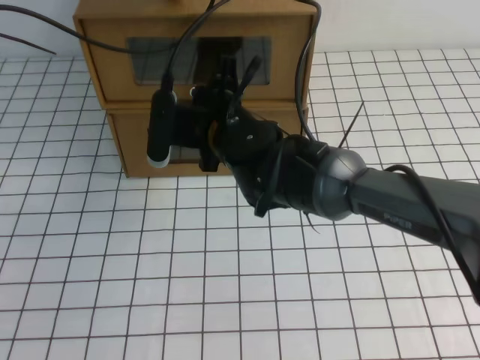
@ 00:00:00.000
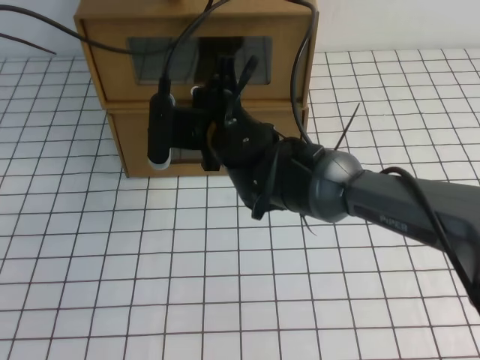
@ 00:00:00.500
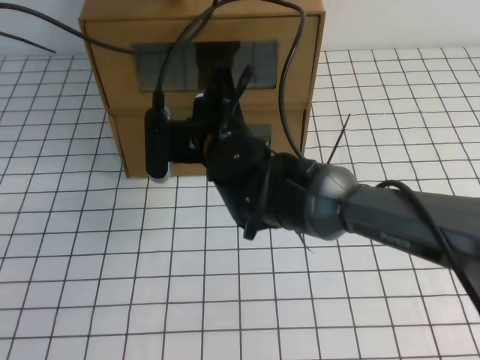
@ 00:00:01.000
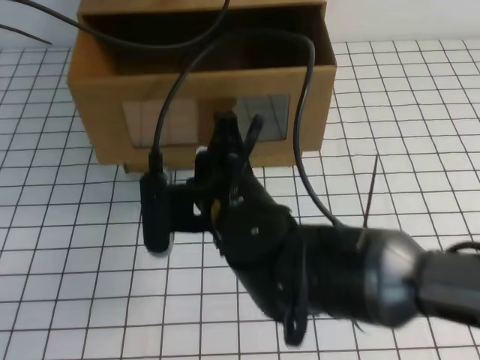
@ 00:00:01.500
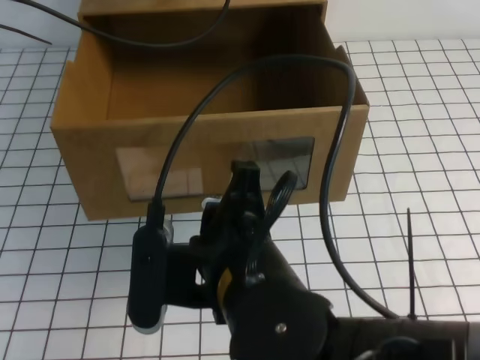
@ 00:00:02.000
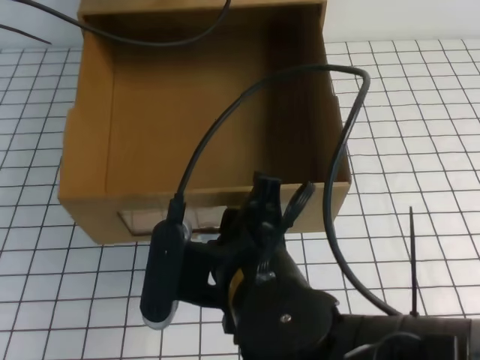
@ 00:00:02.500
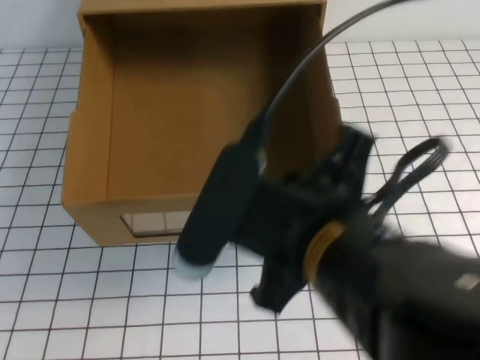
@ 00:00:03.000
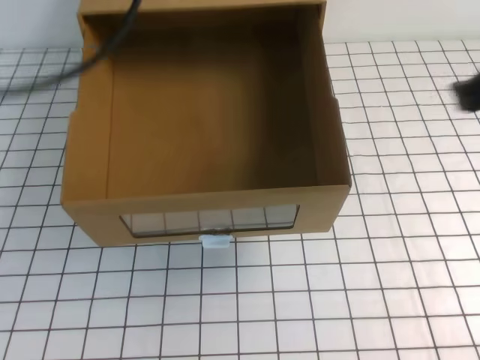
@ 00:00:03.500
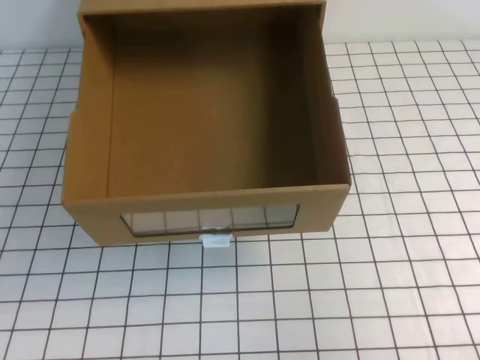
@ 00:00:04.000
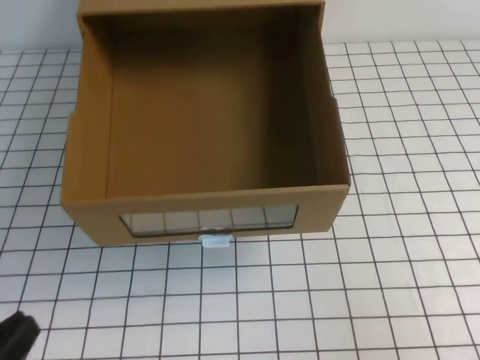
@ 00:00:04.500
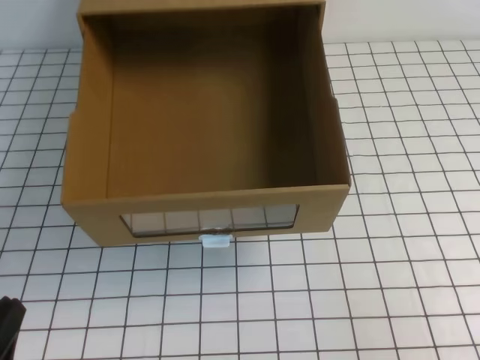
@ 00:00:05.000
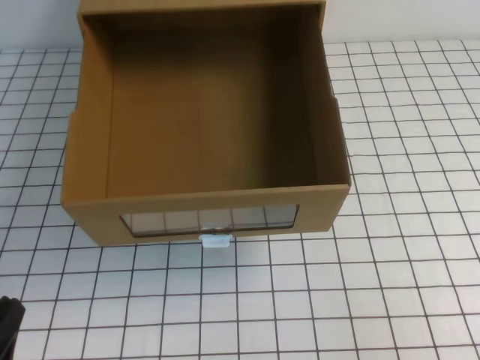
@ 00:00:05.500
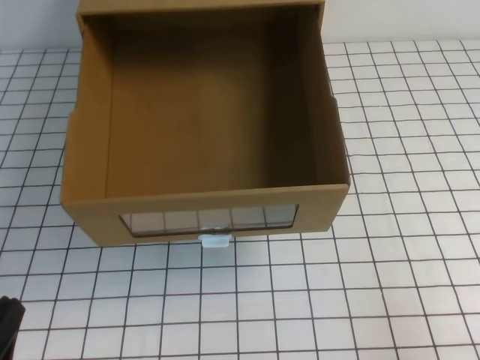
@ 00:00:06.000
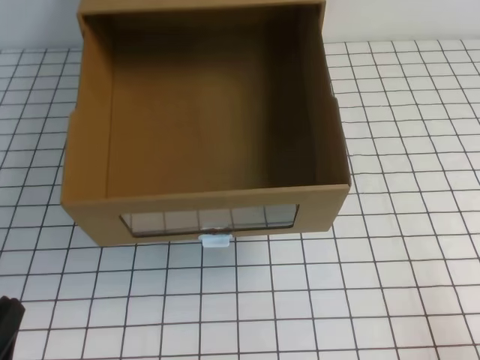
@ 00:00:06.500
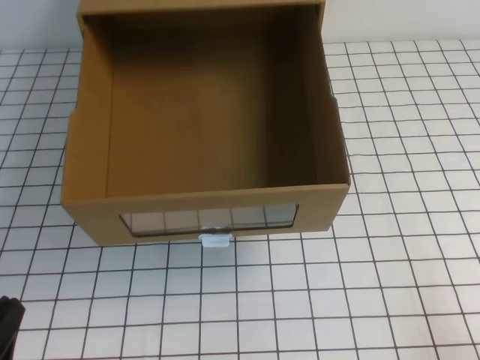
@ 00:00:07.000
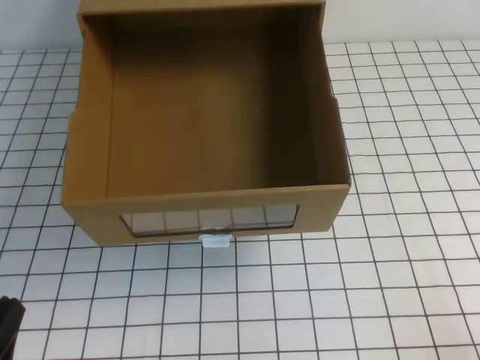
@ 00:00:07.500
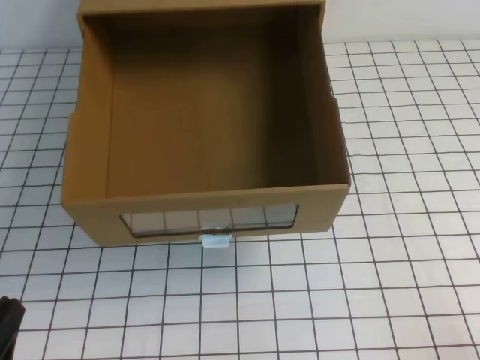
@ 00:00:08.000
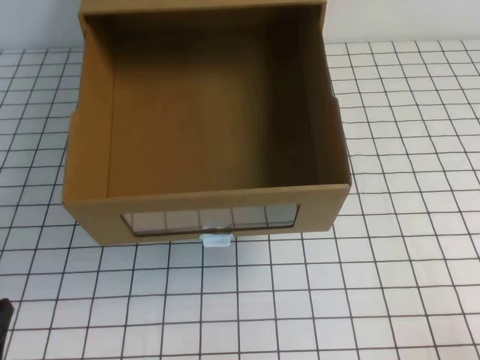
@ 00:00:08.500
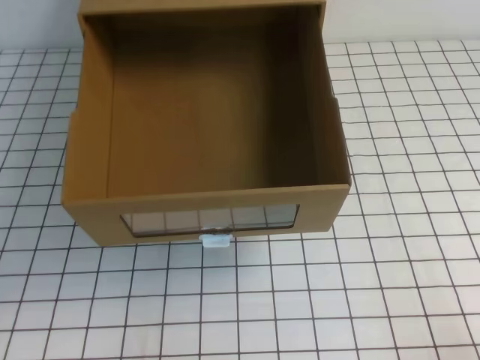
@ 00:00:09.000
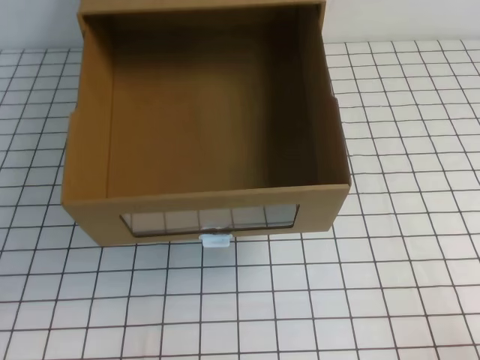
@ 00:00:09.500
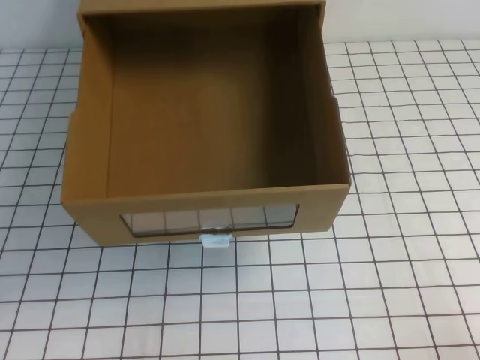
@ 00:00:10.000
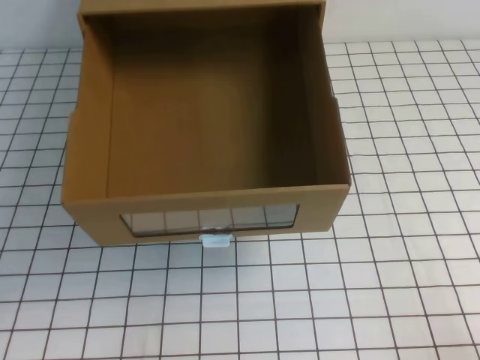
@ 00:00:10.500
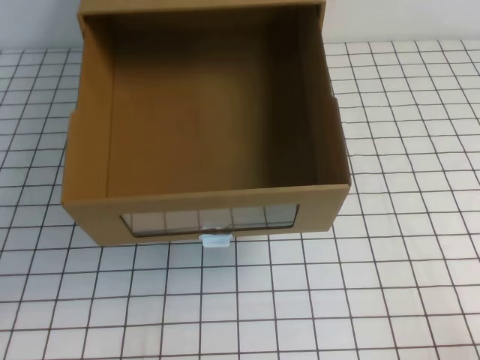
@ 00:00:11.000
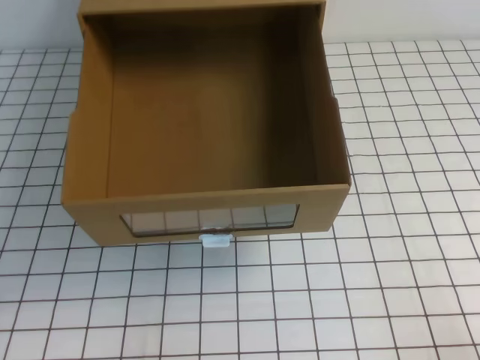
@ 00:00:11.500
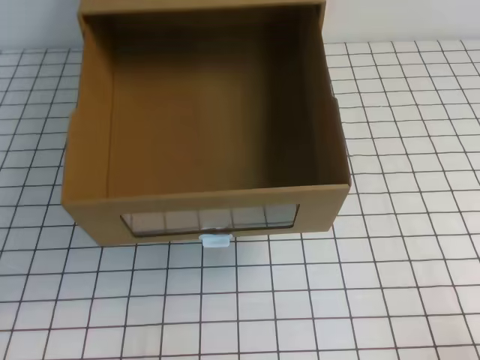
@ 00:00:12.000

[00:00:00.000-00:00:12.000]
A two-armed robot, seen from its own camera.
Task of the whole recording: open the shoebox on the white tablecloth.
Step, 00:00:00.000 to 00:00:12.000: Open the shoe box.
00:00:00.000 to 00:00:02.000: The right gripper moves backward, about 20 cm.
00:00:02.000 to 00:00:04.000: The left gripper moves backward, roughly 40 cm. The right gripper heads to the right, covering approximately 30 cm, and opens, then closes again.
00:00:04.000 to 00:00:06.000: The right gripper shifts approximately 15 cm downward and backward. Meanwhile the left gripper goes about 25 cm downward.
00:00:10.000 to 00:00:12.000: The two grippers keep their place.

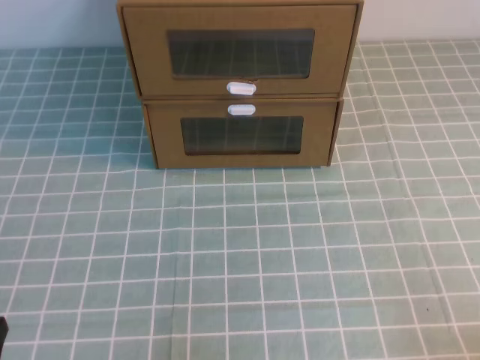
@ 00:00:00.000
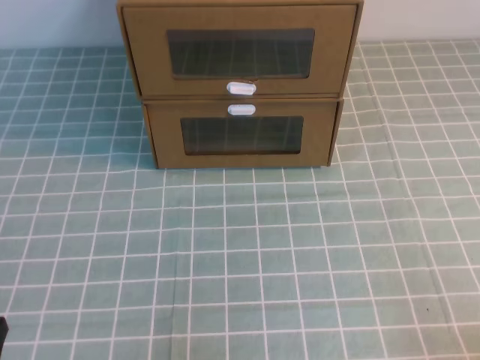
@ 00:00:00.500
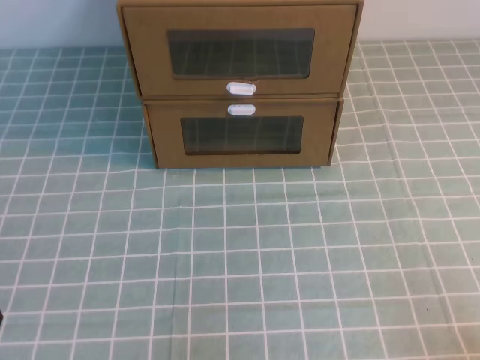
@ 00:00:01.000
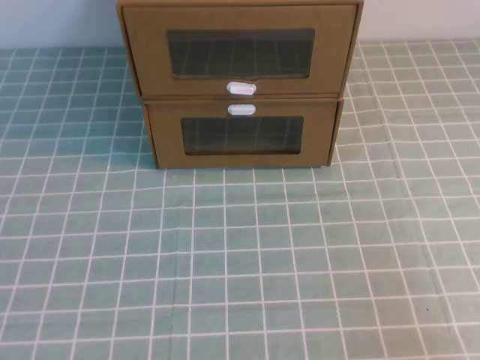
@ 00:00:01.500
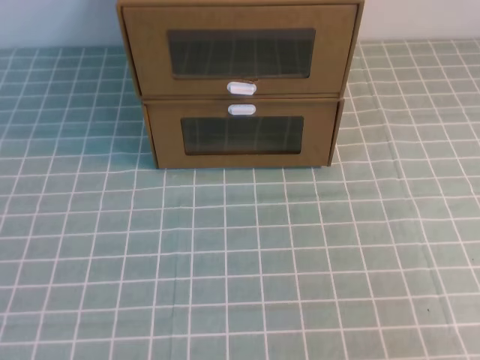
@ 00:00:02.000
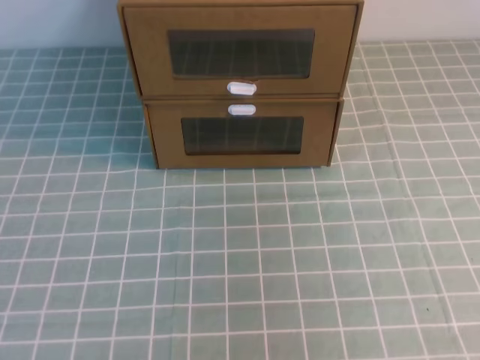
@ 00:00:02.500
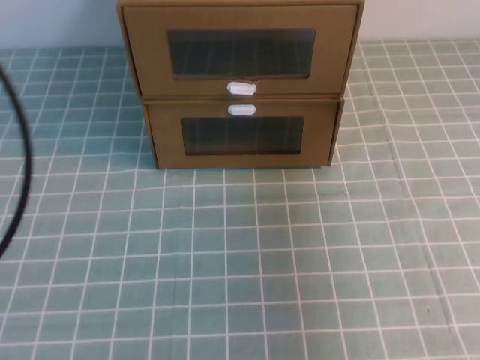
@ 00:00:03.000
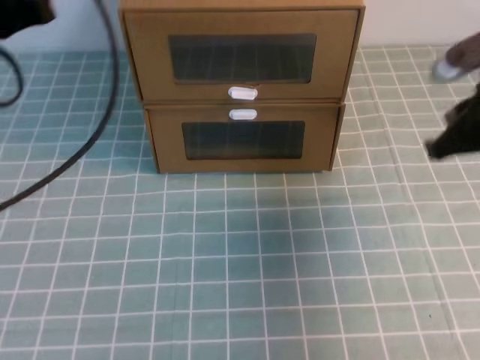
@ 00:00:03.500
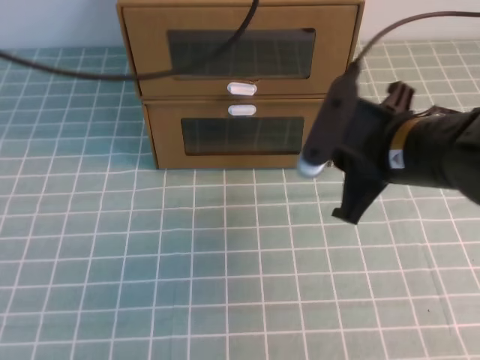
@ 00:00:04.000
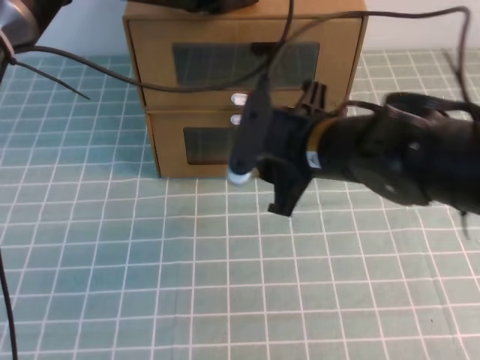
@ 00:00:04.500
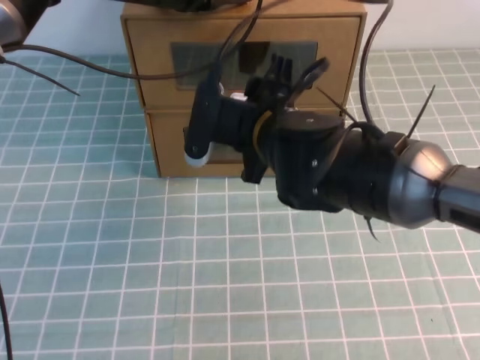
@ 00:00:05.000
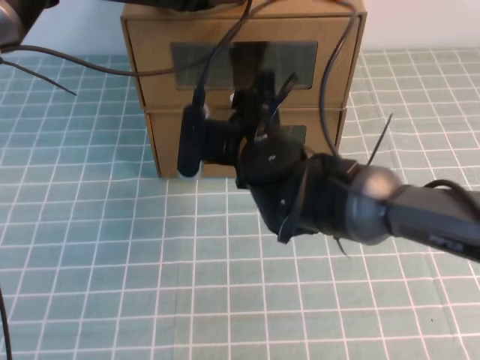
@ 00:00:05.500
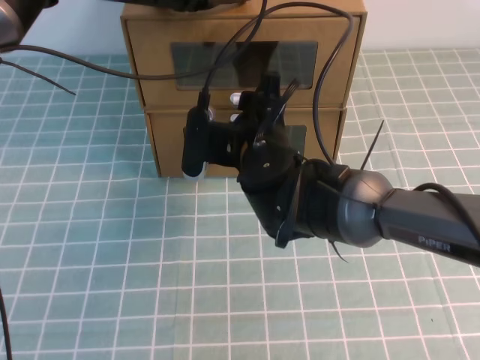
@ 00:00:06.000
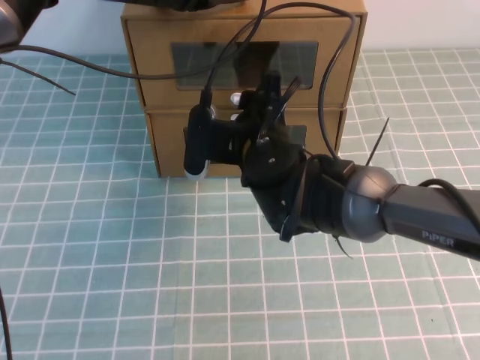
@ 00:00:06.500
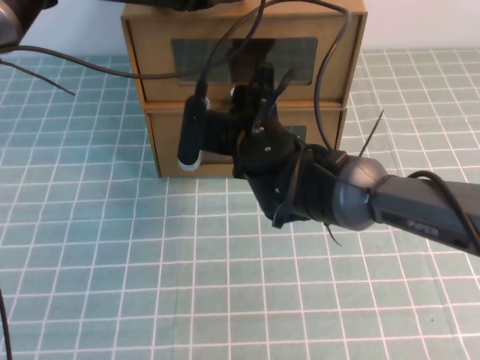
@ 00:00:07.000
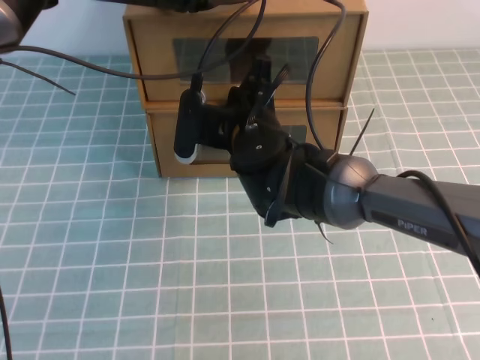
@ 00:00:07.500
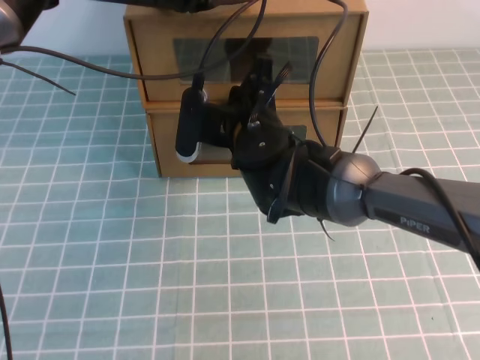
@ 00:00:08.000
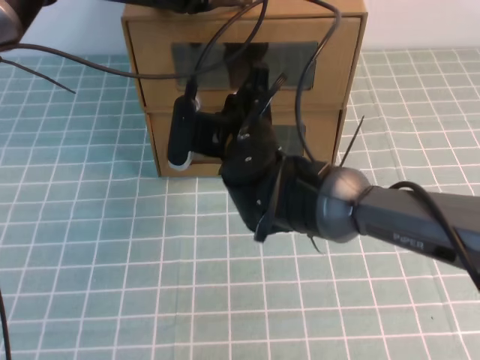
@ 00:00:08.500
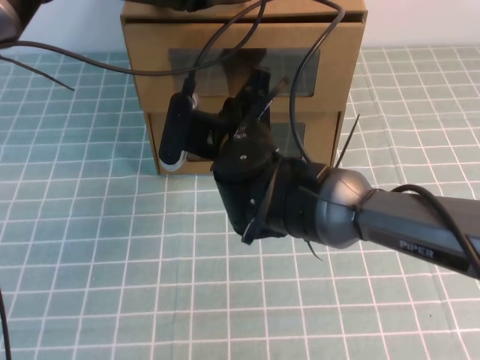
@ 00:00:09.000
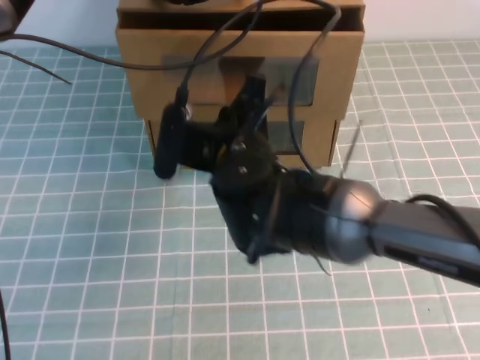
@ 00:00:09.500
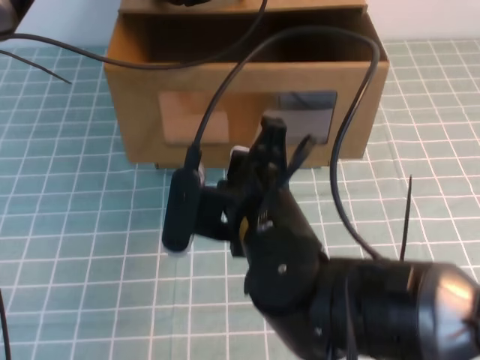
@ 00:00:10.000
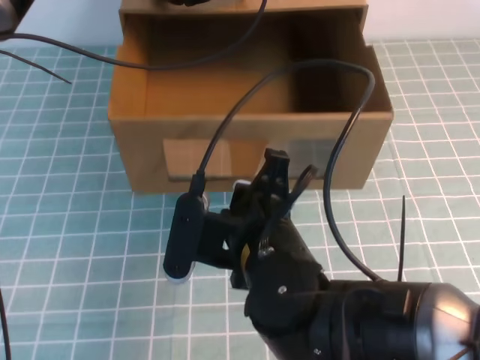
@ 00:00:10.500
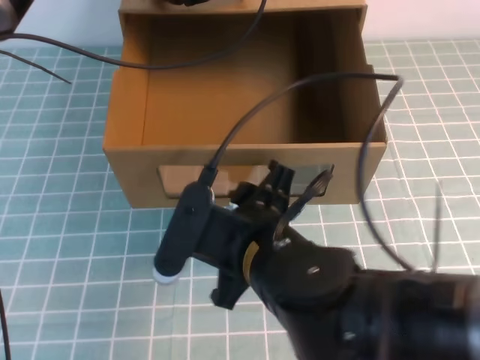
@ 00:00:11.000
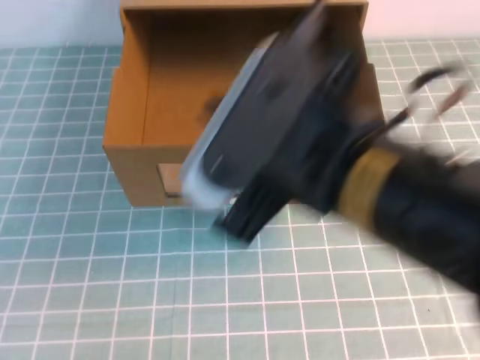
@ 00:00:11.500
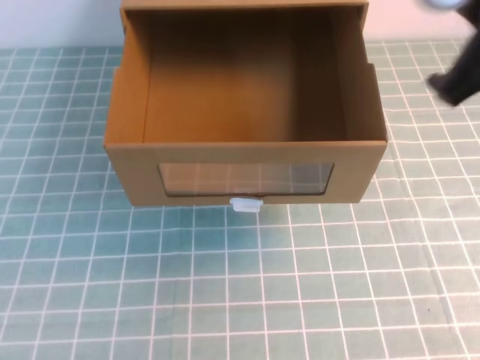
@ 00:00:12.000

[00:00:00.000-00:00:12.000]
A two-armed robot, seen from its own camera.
Task of the whole recording: open the shoebox on the cyan tablecloth.
00:00:02.000 to 00:00:04.000: The right gripper travels forward and to the left by some 35 cm; the left gripper moves forward, upward and to the right, roughly 40 cm.
00:00:04.000 to 00:00:06.000: The right gripper travels to the left and forward by approximately 15 cm, and opens. The left gripper shifts approximately 10 cm forward and downward.
00:00:06.000 to 00:00:08.000: The right gripper closes.
00:00:08.000 to 00:00:10.000: The right gripper moves backward, about 15 cm.
00:00:10.000 to 00:00:12.000: The right gripper is displaced to the right and upward by about 25 cm, and opens and closes again. Meanwhile the left gripper heads upward, backward and to the left, covering about 30 cm.

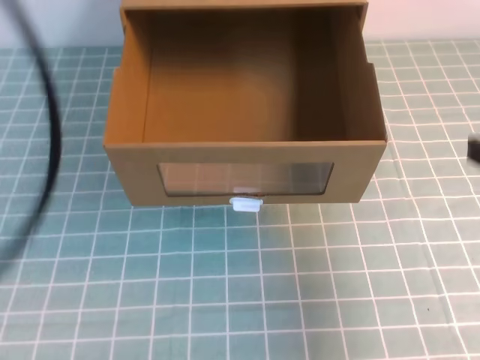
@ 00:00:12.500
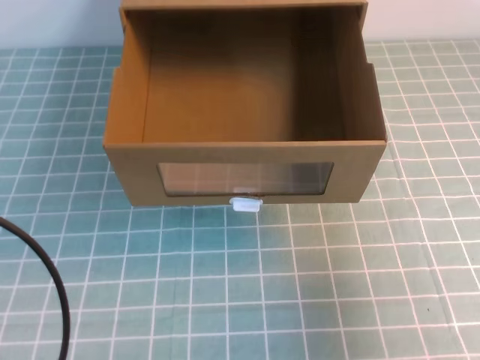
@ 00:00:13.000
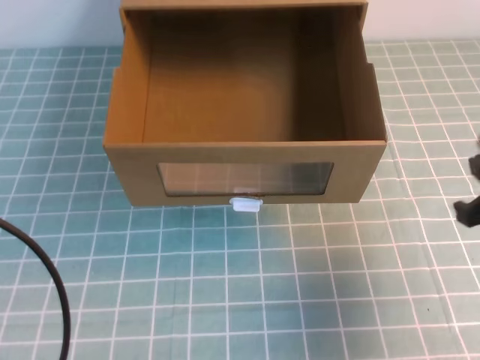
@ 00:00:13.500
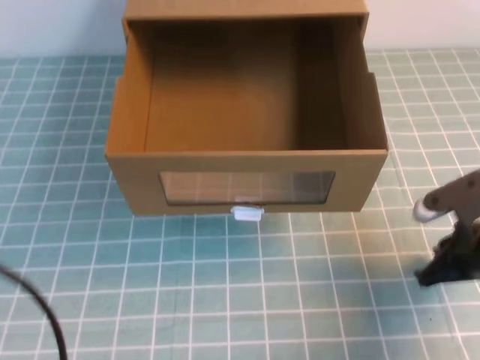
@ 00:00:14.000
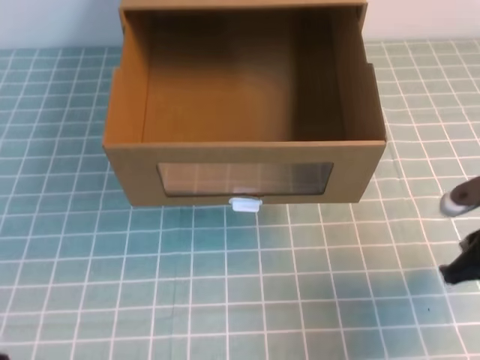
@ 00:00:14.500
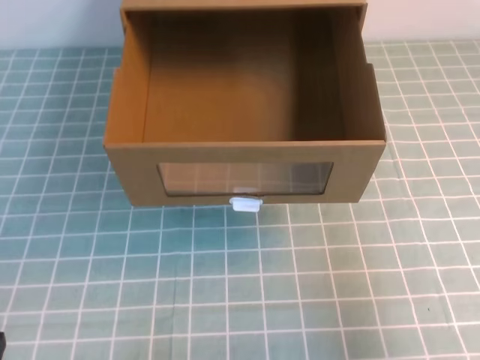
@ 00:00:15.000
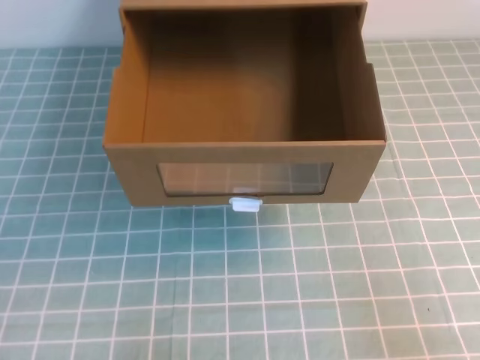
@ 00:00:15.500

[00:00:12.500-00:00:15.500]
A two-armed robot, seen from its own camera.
Task of the whole recording: open the shoebox on the cyan tablecloth.
00:00:12.500 to 00:00:14.000: The two grippers go approximately 15 cm downward.
00:00:14.000 to 00:00:15.500: The left gripper heads downward, covering some 15 cm, while the right gripper goes roughly 20 cm backward.
